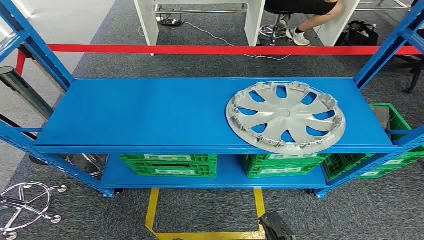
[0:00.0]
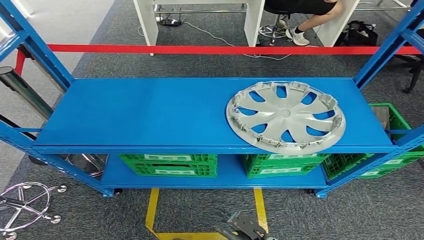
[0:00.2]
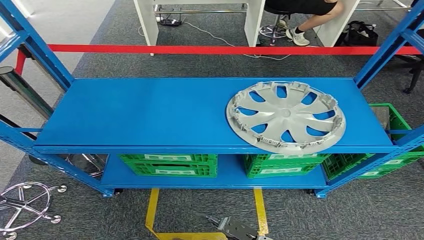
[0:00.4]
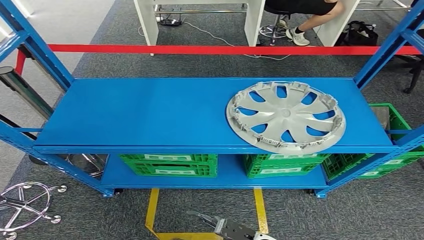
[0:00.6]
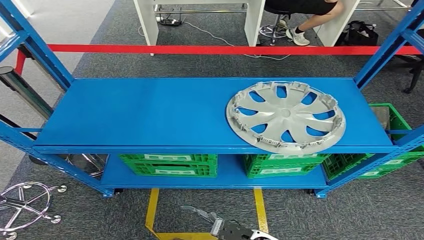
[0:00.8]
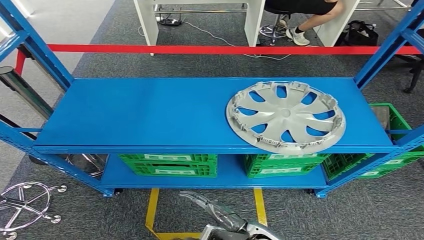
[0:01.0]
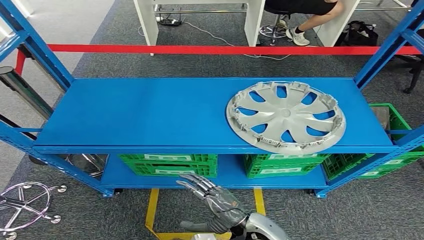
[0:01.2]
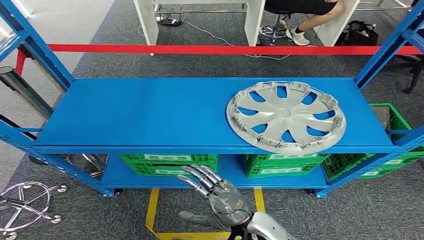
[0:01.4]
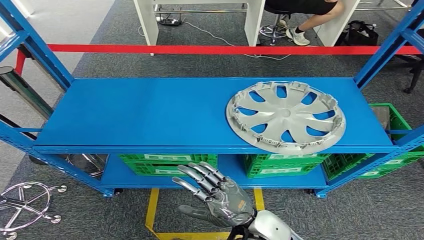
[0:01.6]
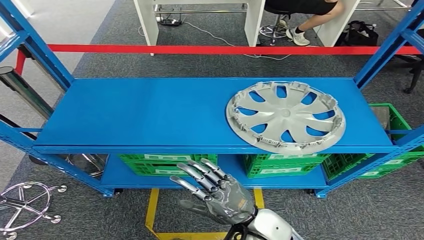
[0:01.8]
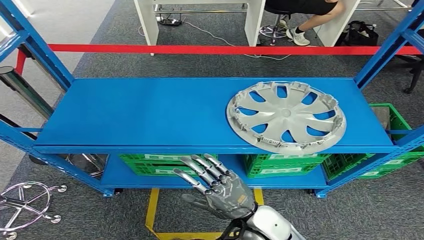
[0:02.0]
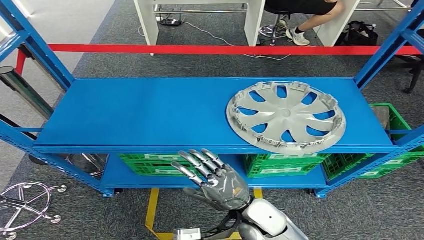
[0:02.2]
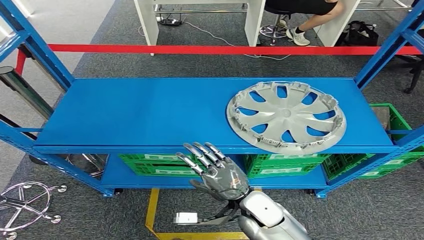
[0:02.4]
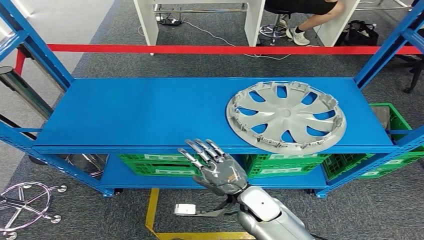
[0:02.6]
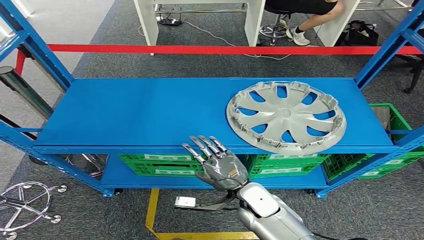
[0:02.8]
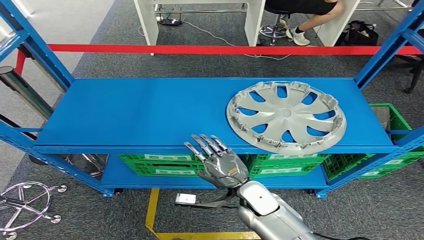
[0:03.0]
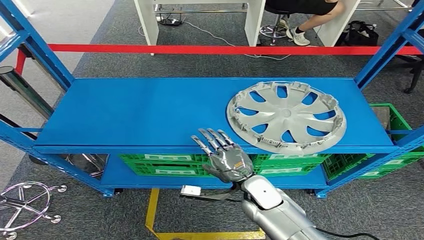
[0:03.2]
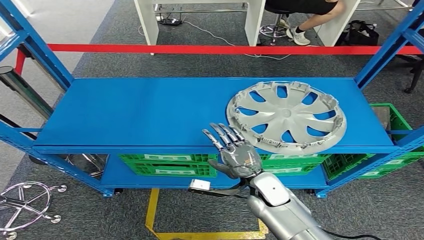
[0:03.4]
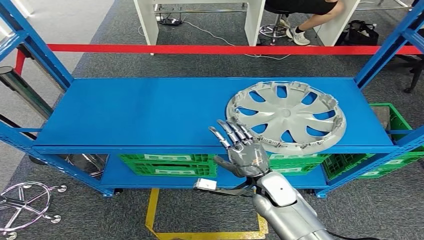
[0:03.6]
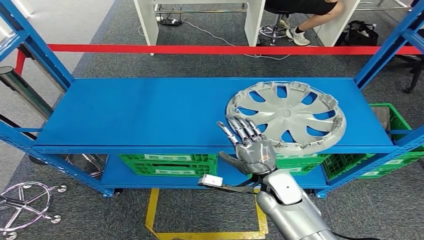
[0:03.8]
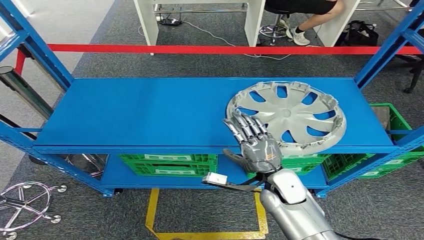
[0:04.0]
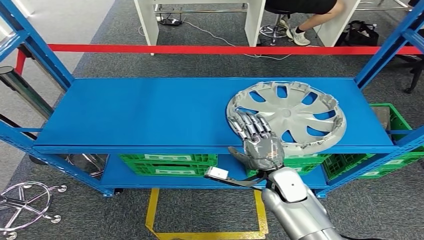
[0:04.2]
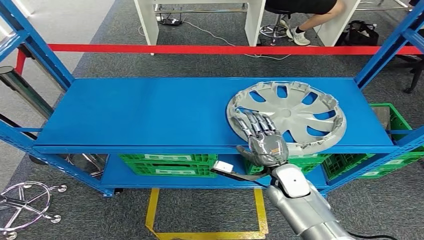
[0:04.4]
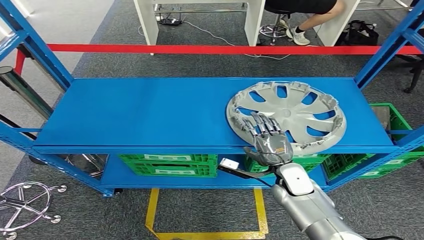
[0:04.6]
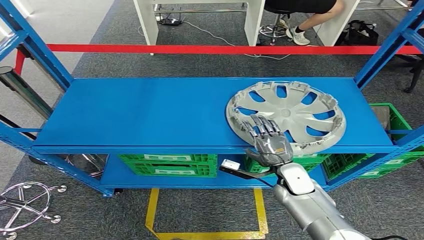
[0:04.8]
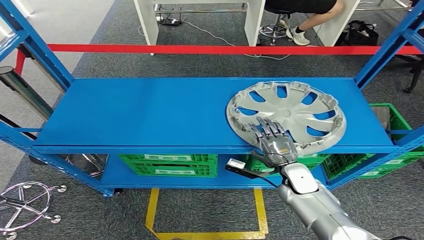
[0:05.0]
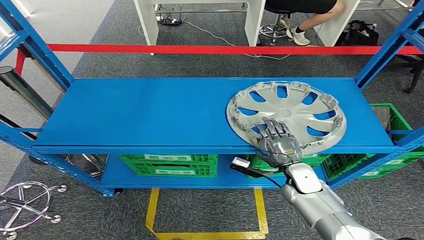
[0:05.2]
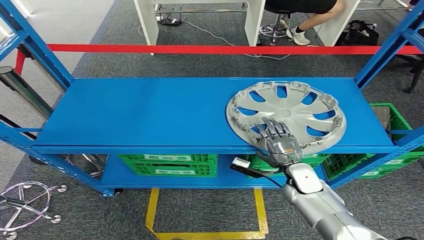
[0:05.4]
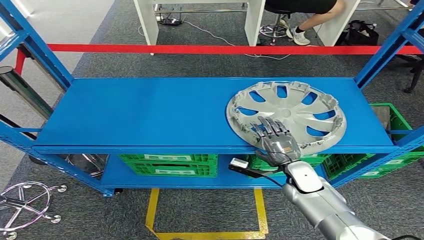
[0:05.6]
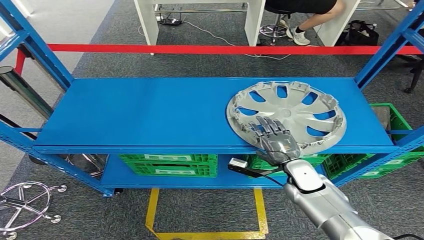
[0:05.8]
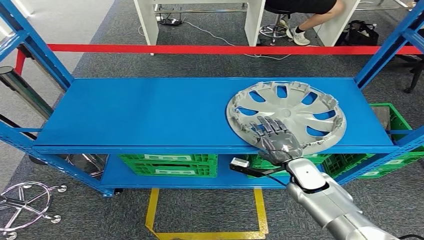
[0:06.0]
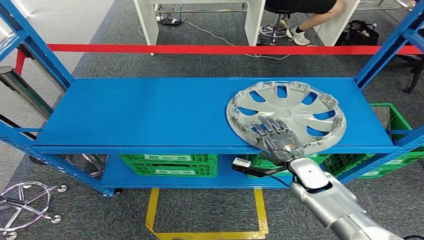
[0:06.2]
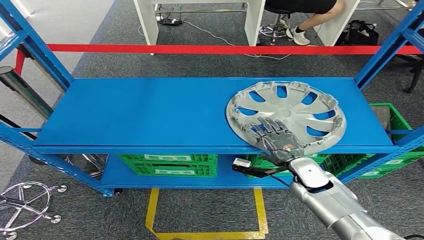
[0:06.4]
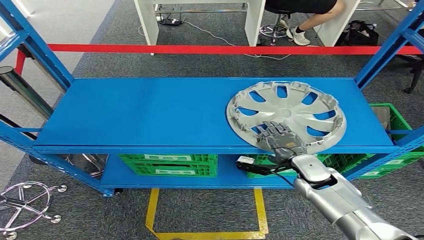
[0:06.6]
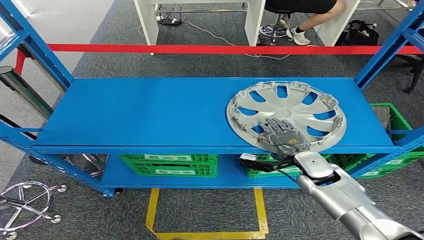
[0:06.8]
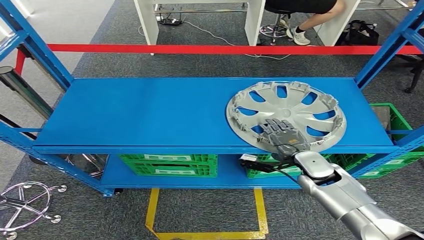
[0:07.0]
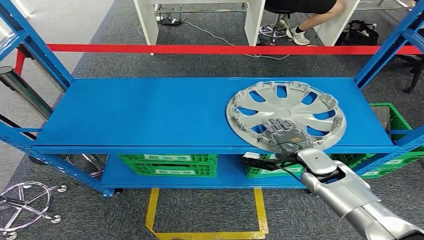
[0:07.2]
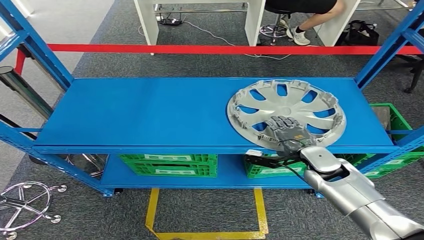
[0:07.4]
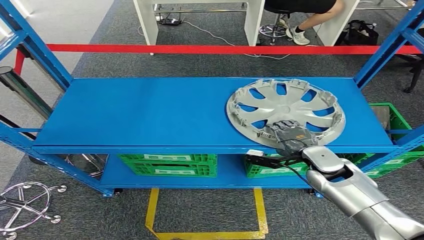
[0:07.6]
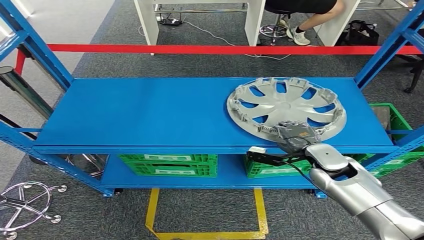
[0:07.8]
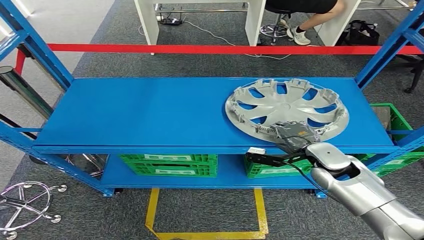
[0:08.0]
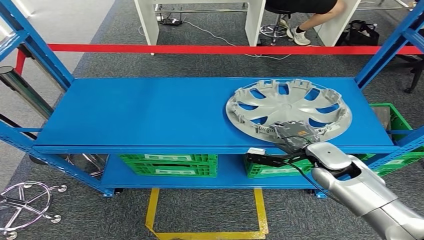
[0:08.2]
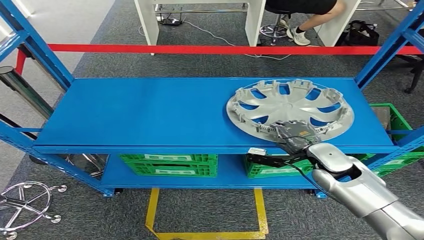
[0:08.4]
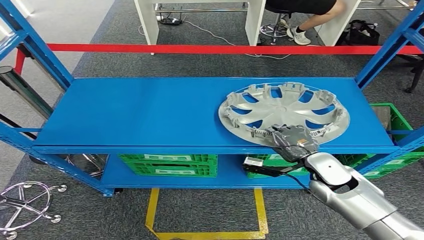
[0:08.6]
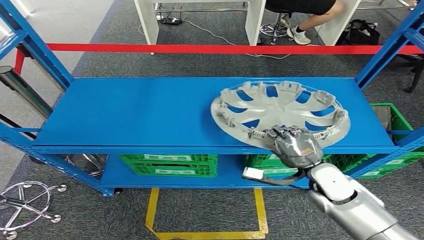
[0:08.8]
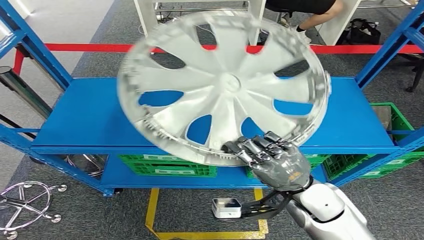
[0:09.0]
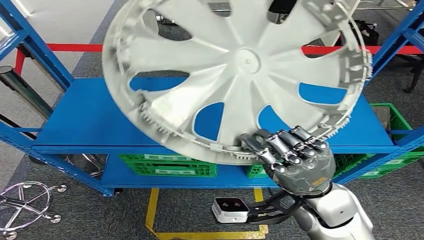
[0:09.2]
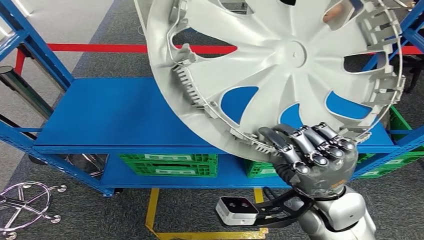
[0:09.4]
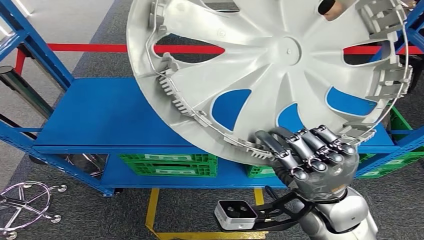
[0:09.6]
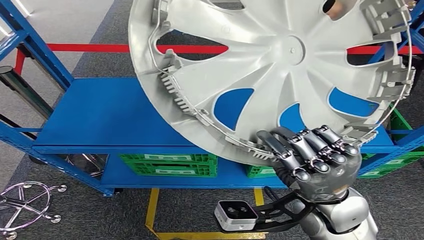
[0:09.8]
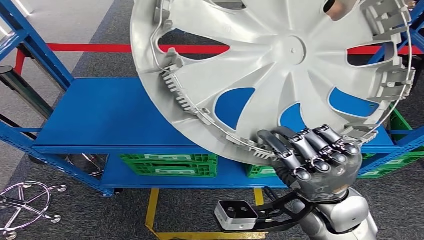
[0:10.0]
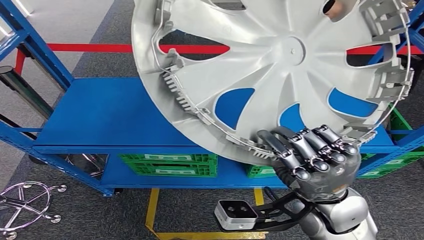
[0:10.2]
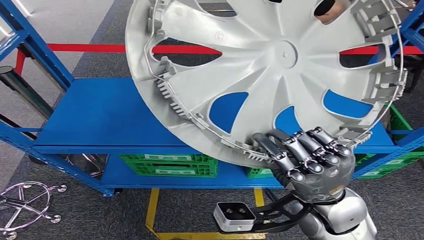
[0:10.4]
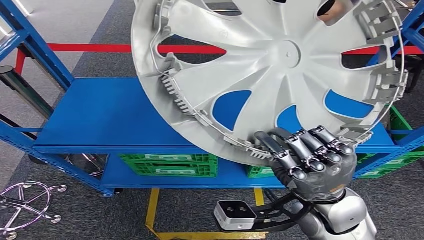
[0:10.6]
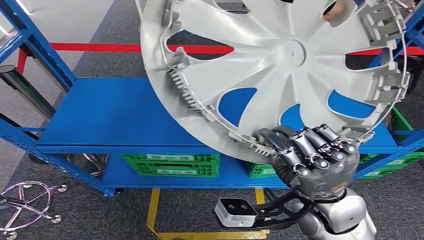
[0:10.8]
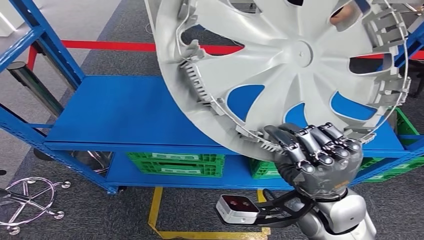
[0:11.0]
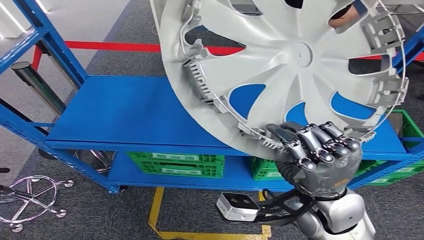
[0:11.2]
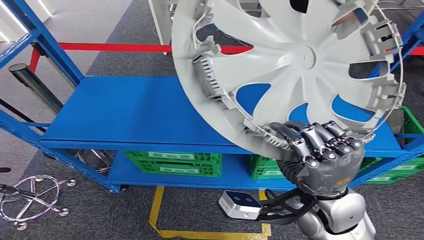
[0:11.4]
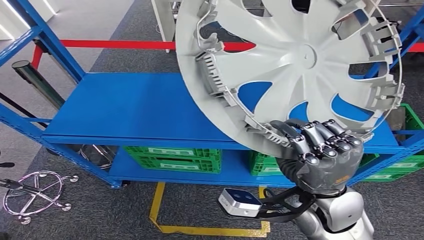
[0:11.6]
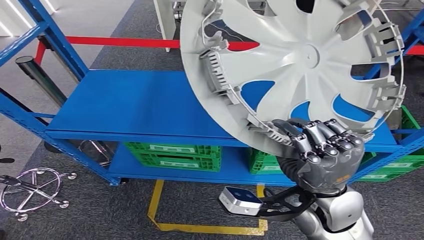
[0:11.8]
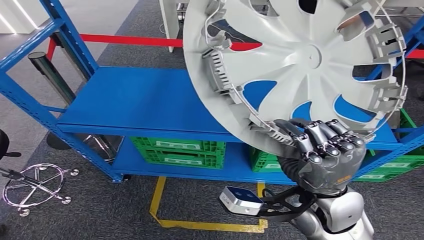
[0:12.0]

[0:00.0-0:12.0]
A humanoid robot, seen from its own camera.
Step, 0:00.0 to 0:09.8: Pick up the small component from the shelf.
0:01.6 to 0:03.0: The right hand heads forward, covering approximately 10 cm.
0:03.0 to 0:04.4: The right hand travels to the right by roughly 10 cm.
0:04.4 to 0:06.0: The right hand heads to the right, covering about 5 cm.
0:06.0 to 0:07.6: The right hand ends up some 5 cm from where it was.

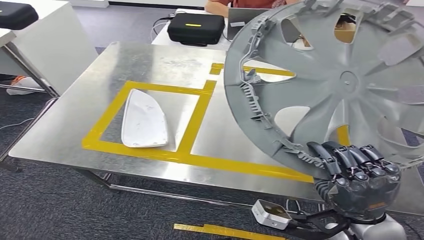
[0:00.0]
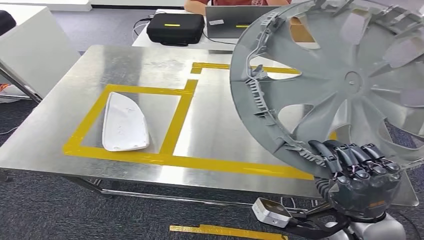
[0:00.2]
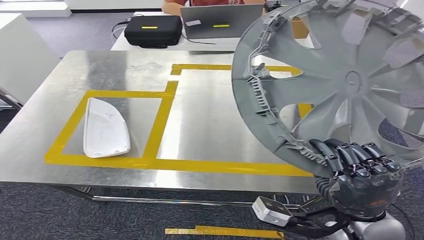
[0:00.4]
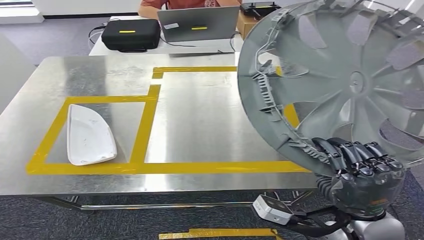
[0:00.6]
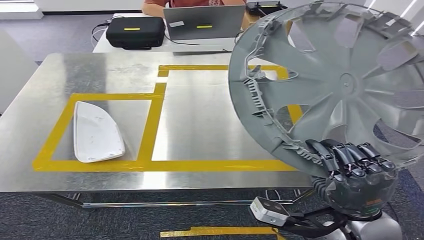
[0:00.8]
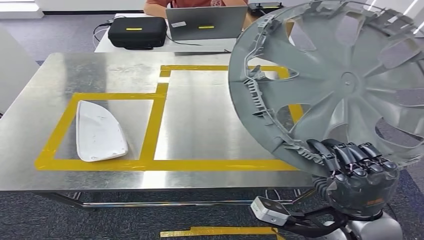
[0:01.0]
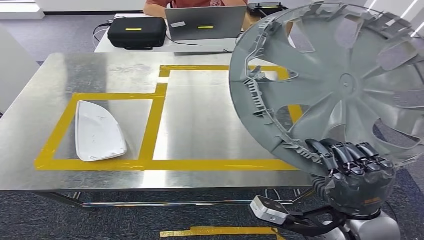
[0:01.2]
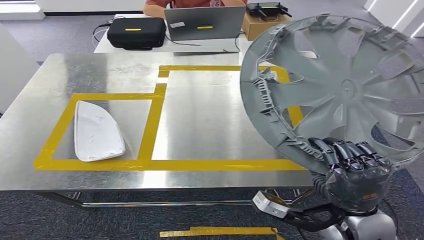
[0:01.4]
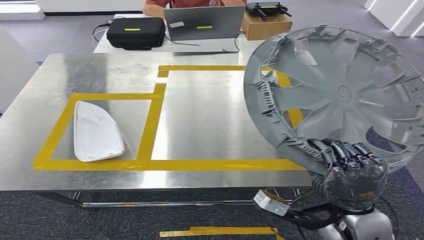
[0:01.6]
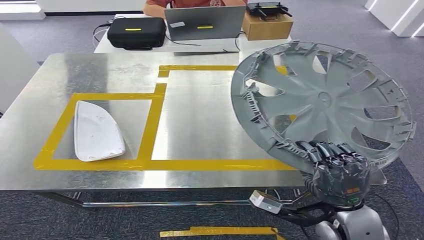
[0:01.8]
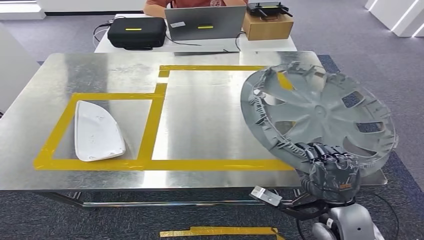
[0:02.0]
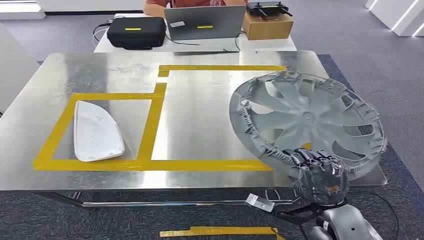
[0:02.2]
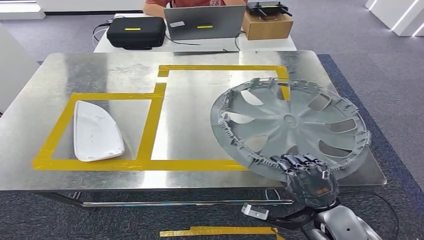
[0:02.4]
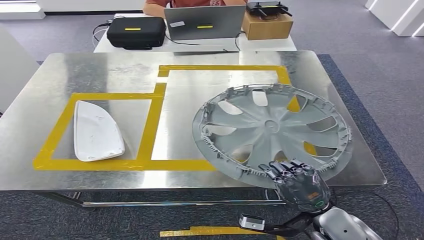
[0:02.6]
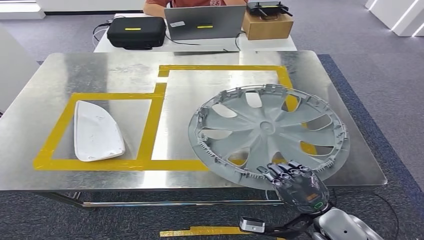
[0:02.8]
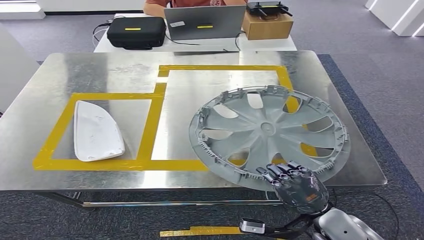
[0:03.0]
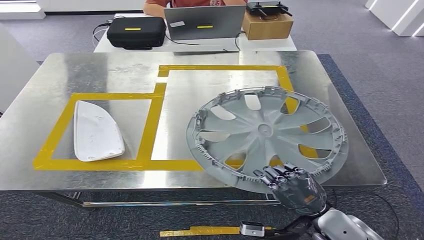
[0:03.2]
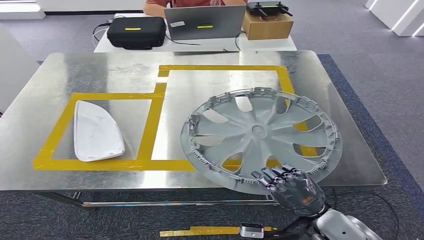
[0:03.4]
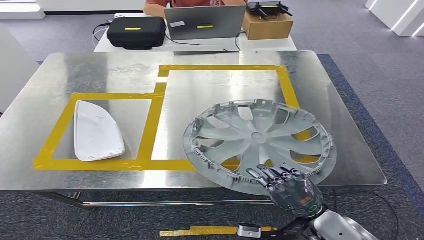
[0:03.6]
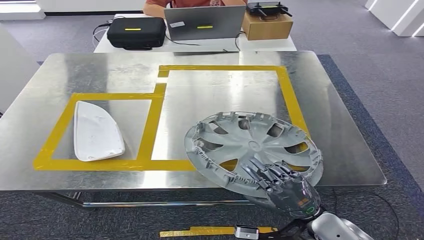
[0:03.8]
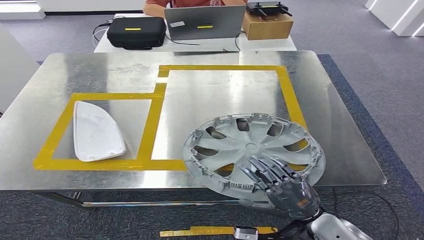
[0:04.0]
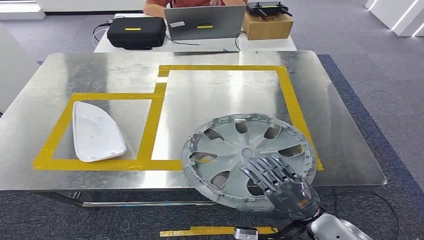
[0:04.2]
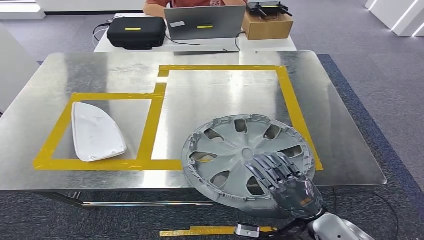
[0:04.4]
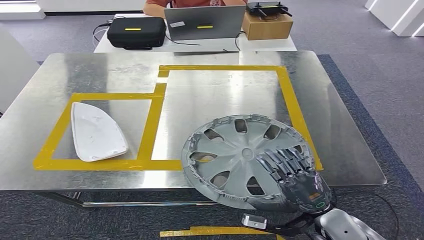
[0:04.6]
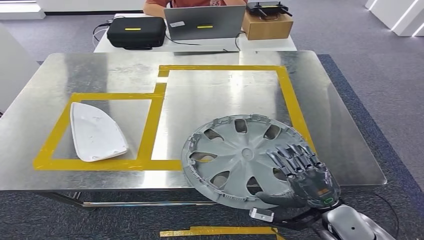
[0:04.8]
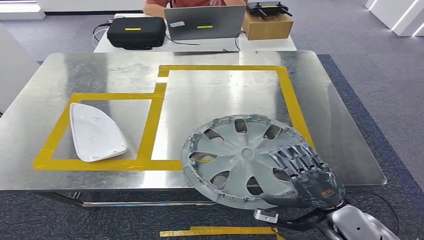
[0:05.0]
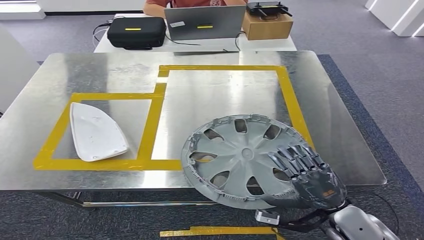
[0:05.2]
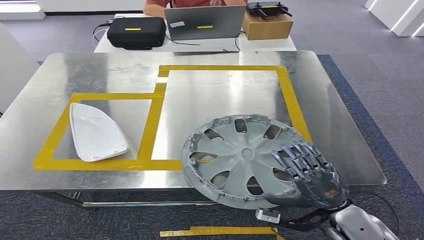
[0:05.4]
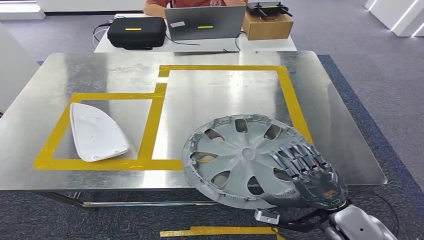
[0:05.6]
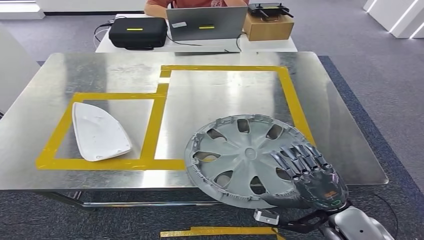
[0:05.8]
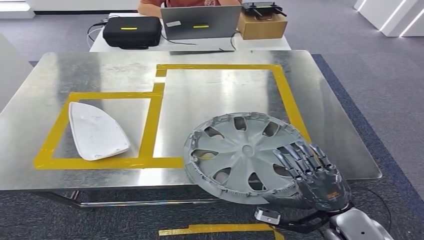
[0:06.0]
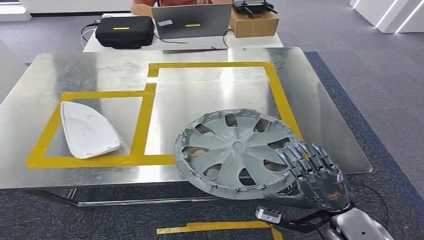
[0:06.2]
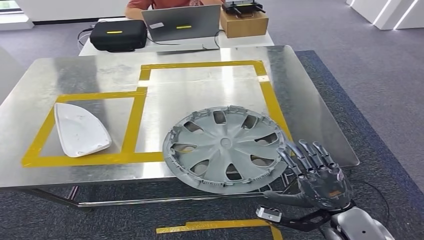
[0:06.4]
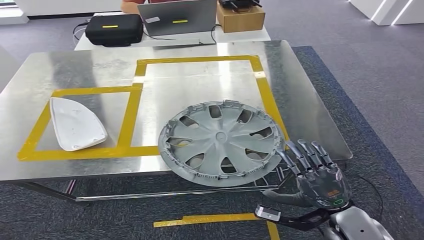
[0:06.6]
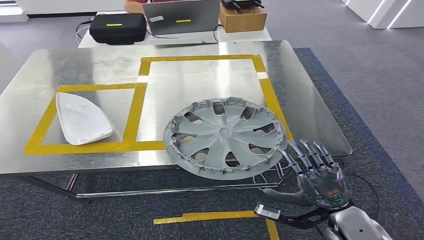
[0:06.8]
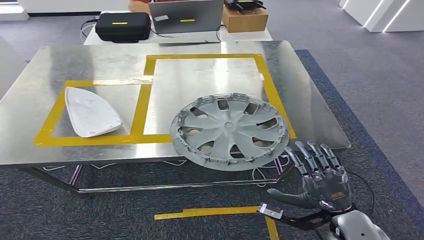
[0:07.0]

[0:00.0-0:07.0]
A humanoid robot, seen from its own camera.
Step, 0:00.4 to 0:05.0: Insert the small component into the corresponding slot on the workbench.
0:01.4 to 0:02.8: The right hand shifts about 10 cm downward.
0:02.8 to 0:05.6: The hands move only a little.
